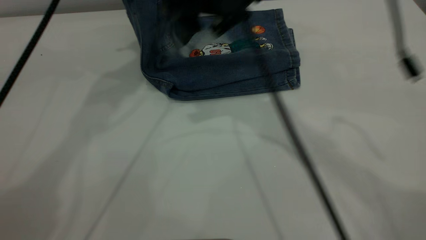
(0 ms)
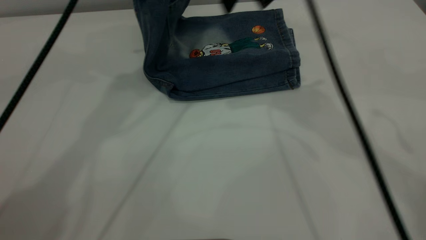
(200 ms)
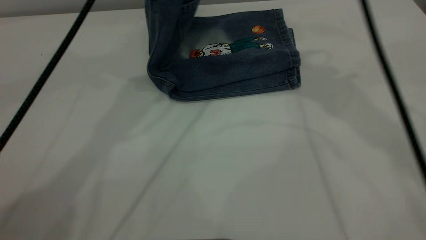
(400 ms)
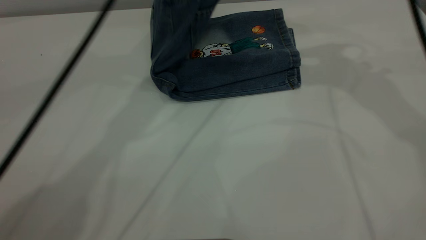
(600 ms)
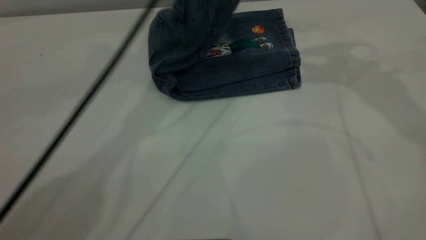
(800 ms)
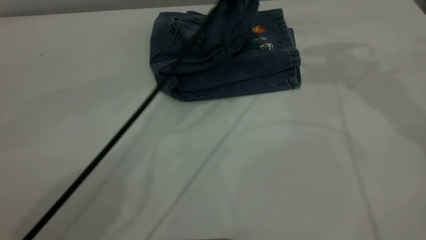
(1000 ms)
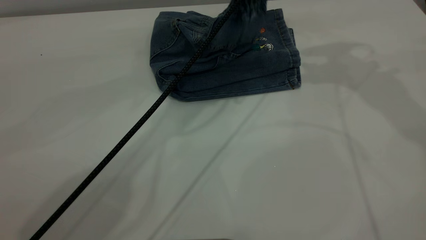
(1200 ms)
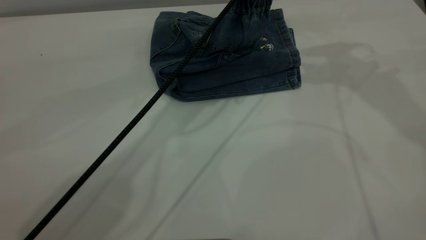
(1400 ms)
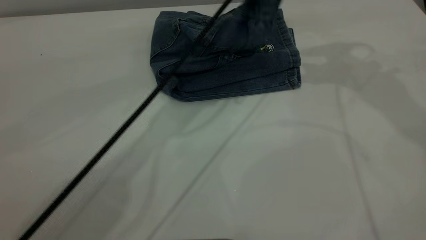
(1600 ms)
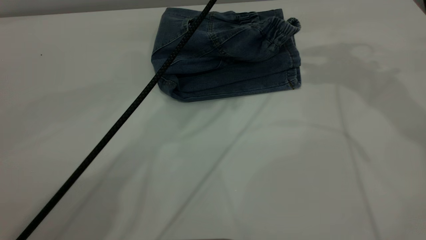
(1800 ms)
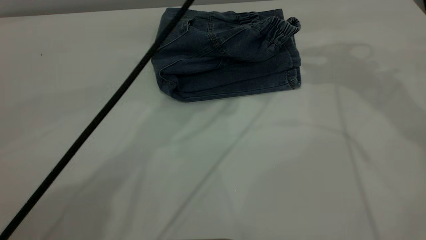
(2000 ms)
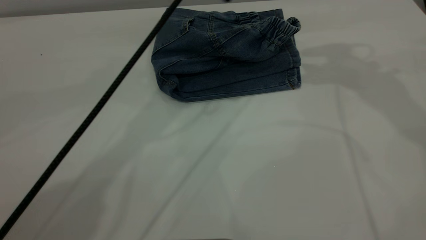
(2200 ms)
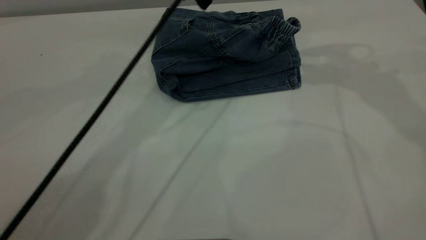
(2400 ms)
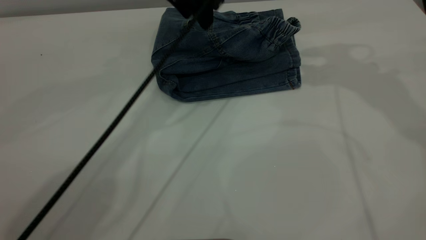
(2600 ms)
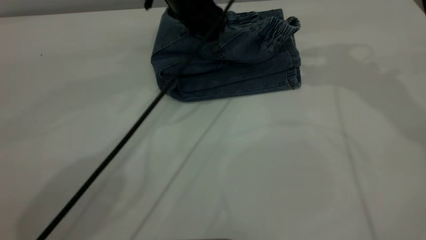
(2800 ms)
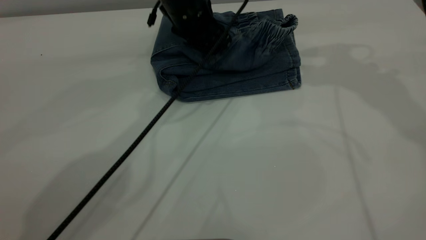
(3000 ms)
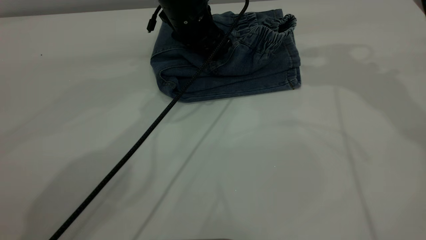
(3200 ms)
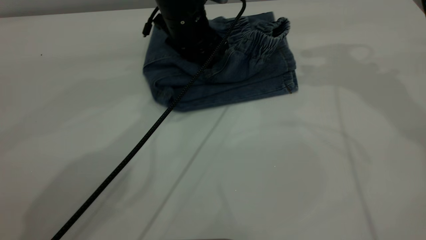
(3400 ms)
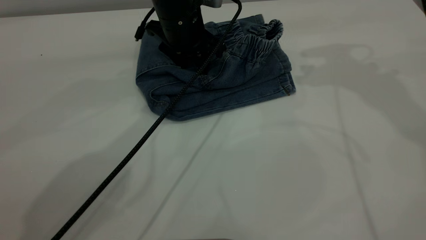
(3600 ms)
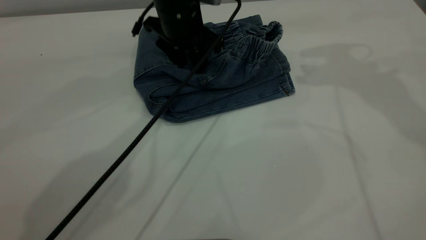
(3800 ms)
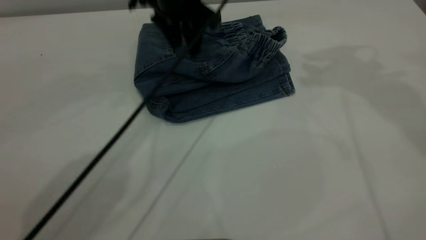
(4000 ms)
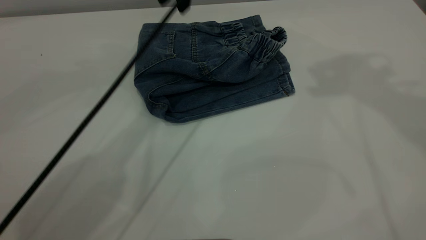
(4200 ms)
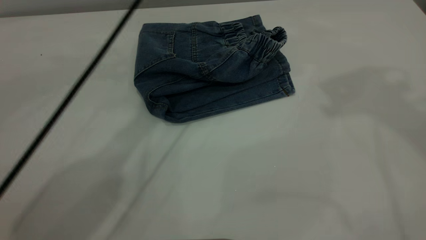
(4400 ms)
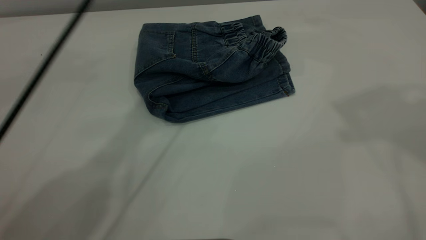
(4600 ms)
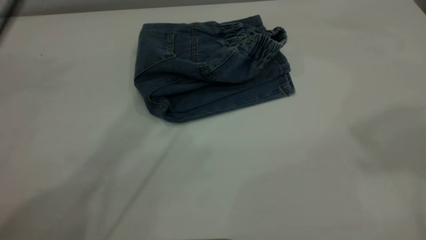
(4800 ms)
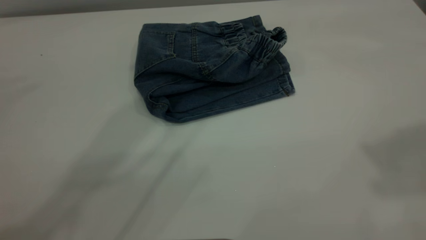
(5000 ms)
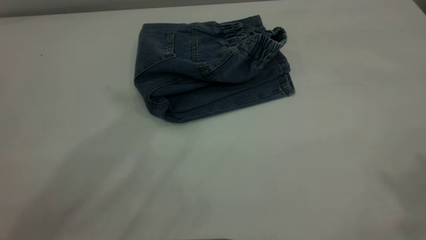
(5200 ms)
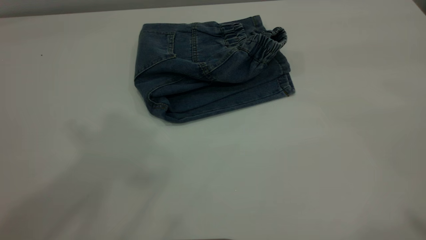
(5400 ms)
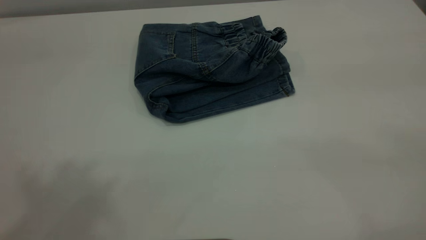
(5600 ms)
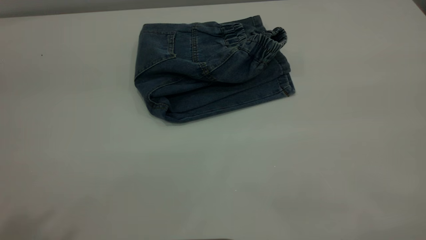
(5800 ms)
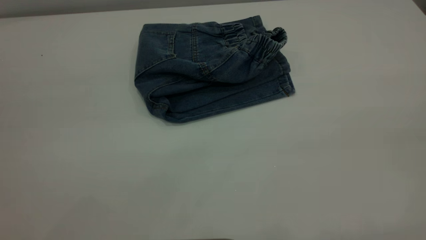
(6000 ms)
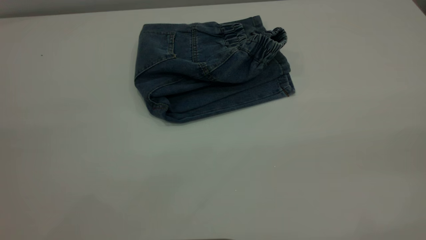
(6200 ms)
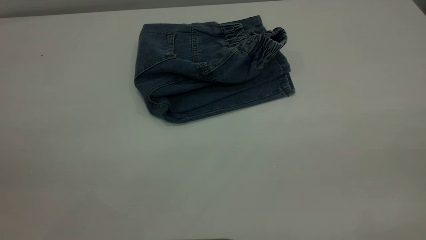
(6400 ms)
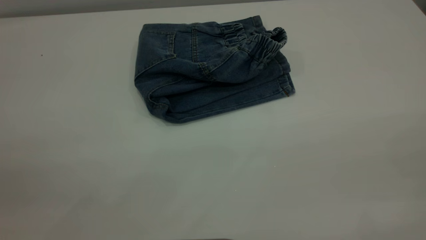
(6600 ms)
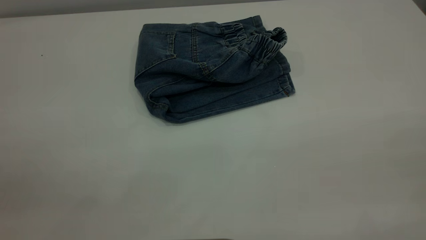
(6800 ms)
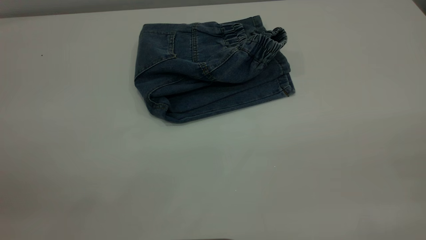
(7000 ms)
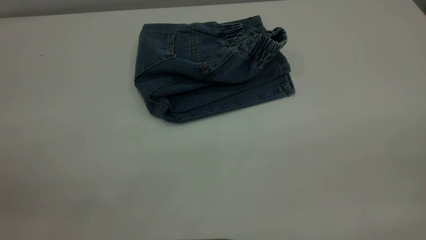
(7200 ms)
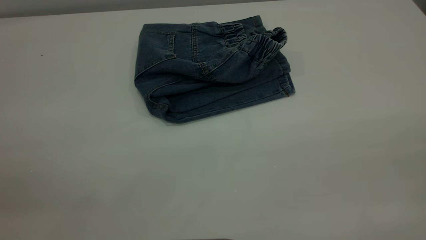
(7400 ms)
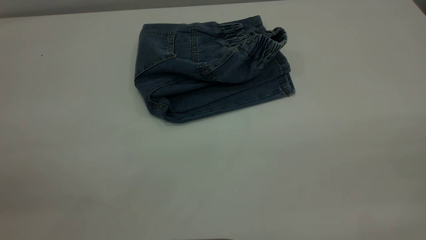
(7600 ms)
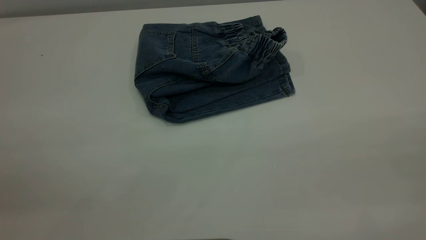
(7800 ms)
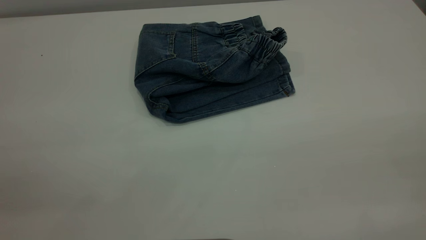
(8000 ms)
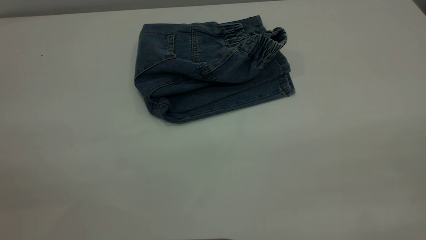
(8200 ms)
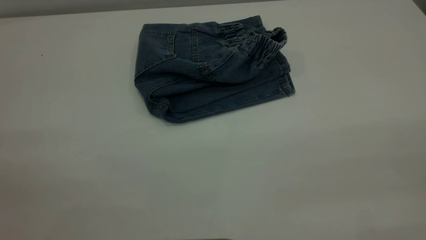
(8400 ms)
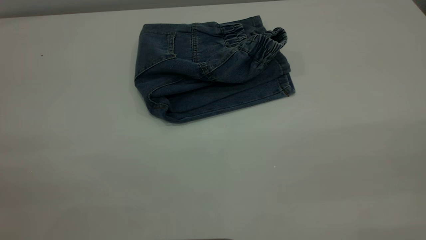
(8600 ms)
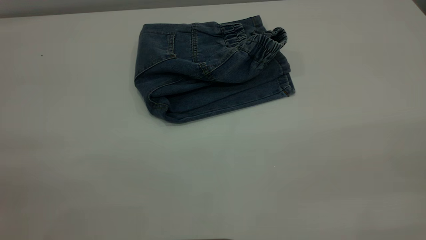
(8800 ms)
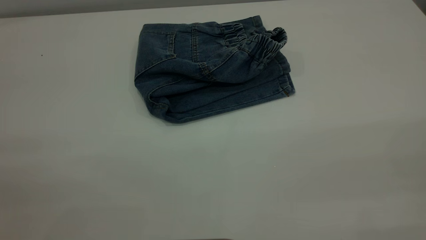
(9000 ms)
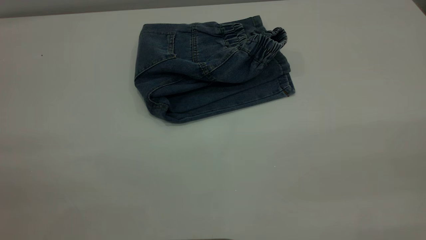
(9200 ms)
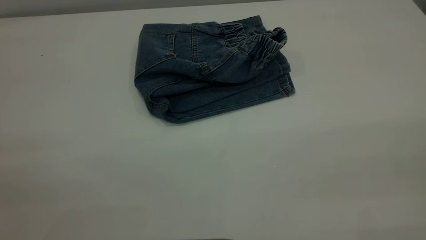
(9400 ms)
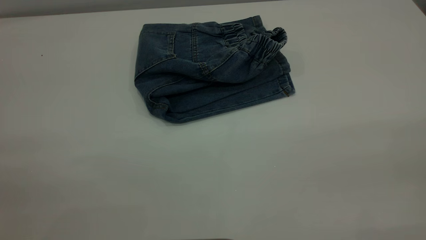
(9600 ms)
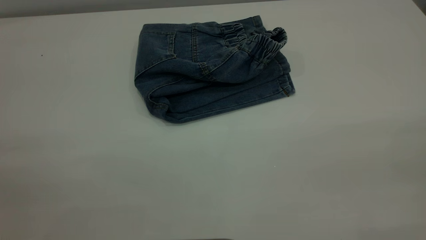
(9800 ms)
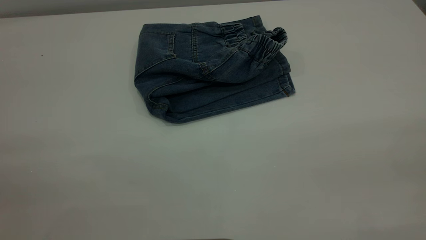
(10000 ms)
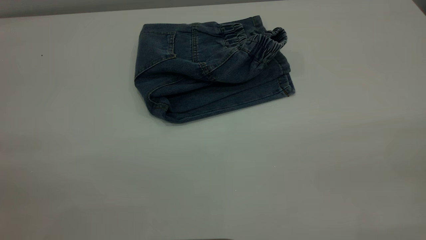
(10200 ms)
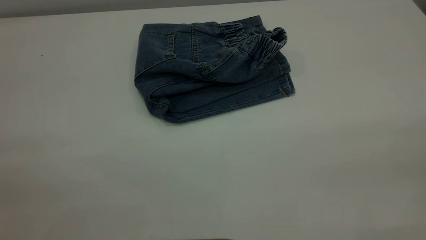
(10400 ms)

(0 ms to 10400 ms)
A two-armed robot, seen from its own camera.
Step, 0 ms - 2200 ms: Fold the pants from left to right.
0 ms - 1400 ms: The right gripper goes roughly 15 cm to the right. The left gripper is displaced to the right and downward by about 20 cm, and opens its fingers.
1400 ms - 3000 ms: The left gripper is displaced downward and to the left by about 10 cm.
3000 ms - 4400 ms: The right gripper shifts approximately 20 cm upward and backward. Meanwhile the left gripper travels upward by approximately 20 cm.
4400 ms - 6000 ms: The left gripper goes about 50 cm backward and to the left.
